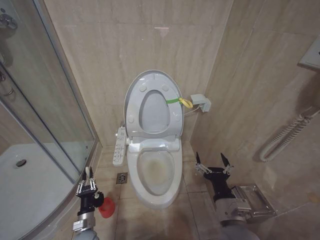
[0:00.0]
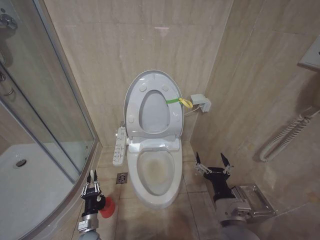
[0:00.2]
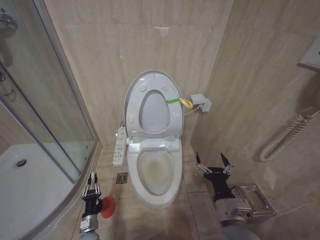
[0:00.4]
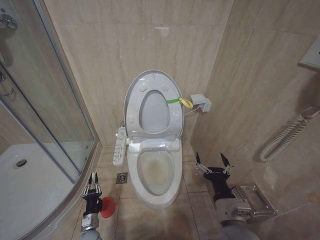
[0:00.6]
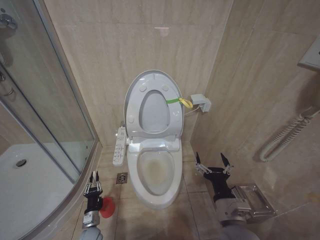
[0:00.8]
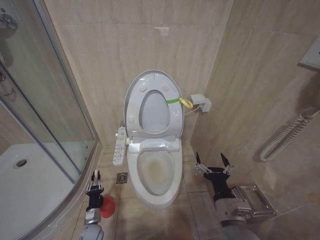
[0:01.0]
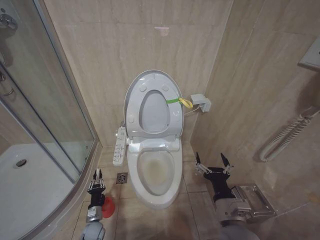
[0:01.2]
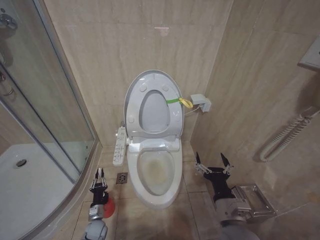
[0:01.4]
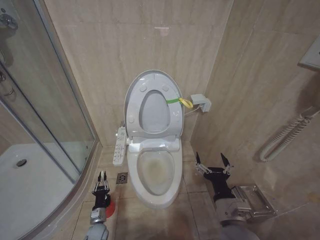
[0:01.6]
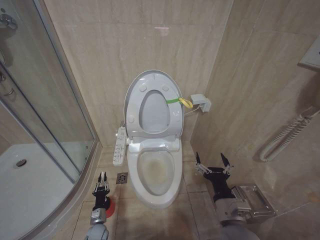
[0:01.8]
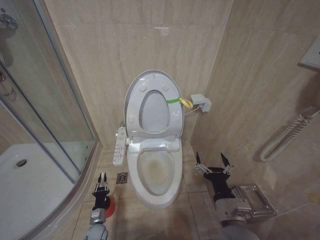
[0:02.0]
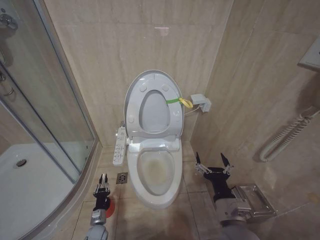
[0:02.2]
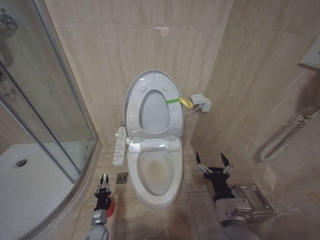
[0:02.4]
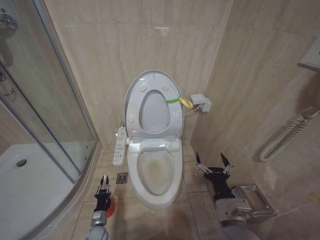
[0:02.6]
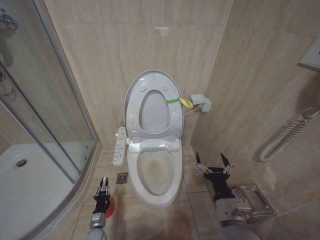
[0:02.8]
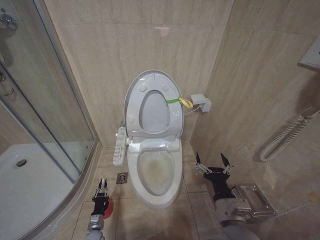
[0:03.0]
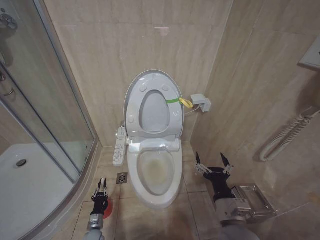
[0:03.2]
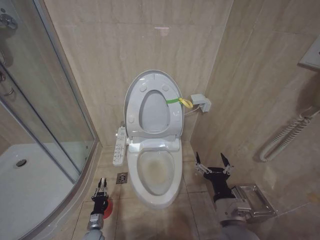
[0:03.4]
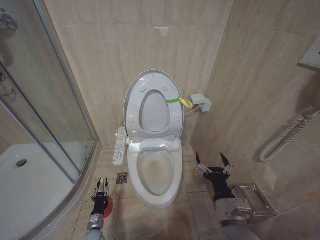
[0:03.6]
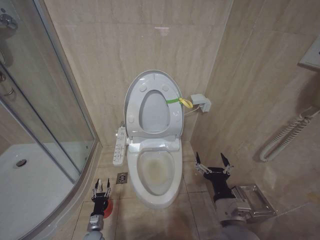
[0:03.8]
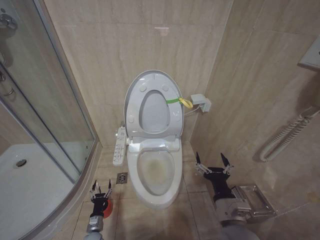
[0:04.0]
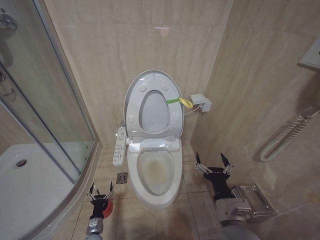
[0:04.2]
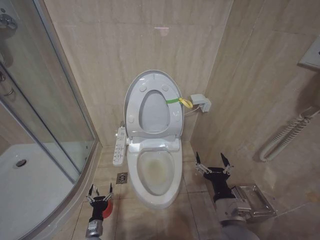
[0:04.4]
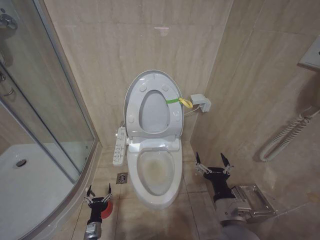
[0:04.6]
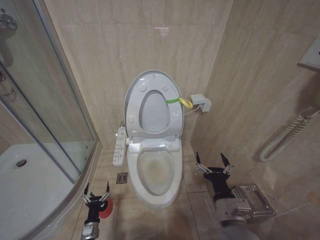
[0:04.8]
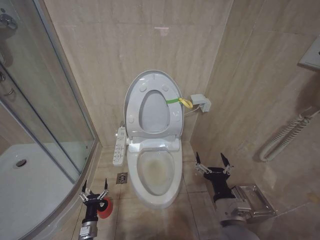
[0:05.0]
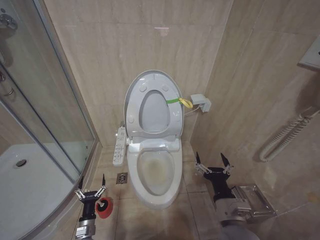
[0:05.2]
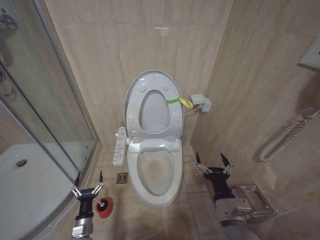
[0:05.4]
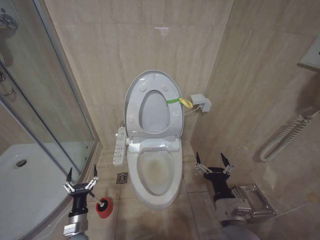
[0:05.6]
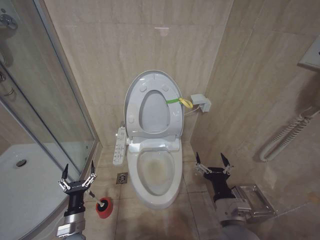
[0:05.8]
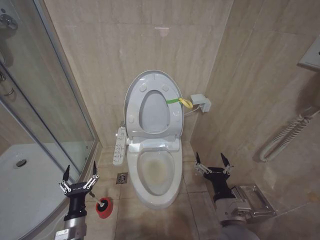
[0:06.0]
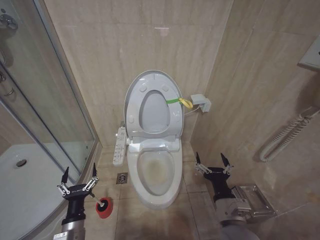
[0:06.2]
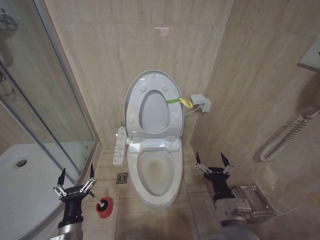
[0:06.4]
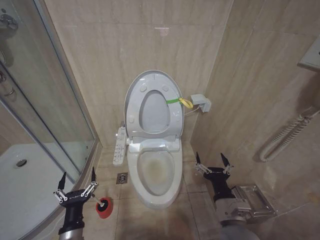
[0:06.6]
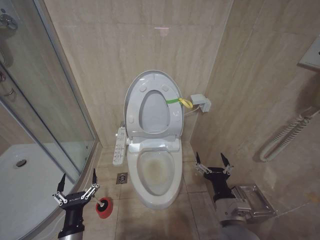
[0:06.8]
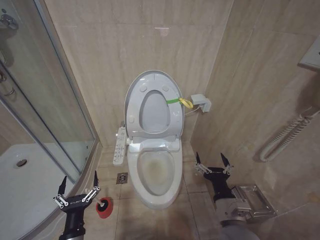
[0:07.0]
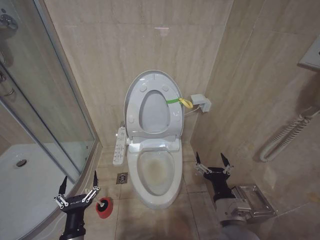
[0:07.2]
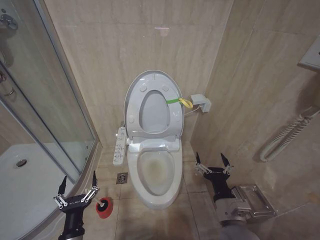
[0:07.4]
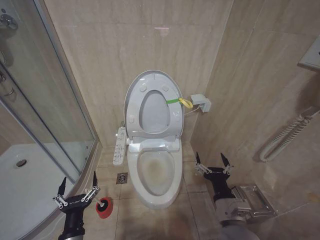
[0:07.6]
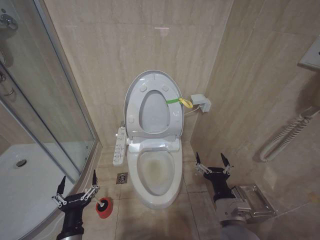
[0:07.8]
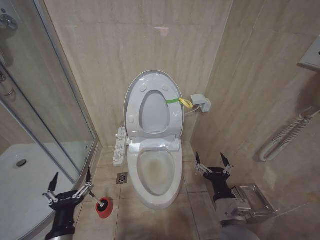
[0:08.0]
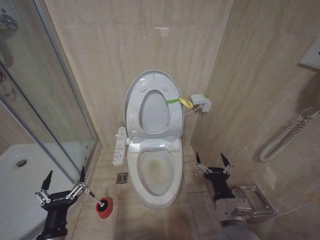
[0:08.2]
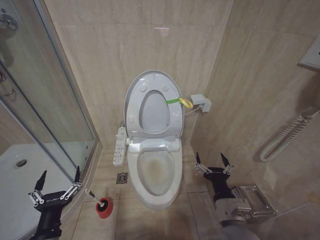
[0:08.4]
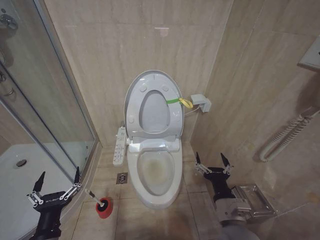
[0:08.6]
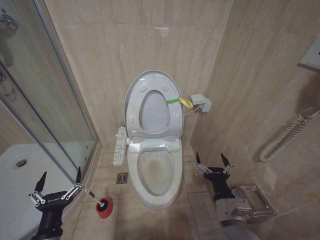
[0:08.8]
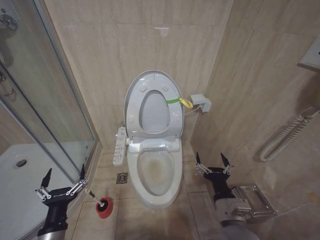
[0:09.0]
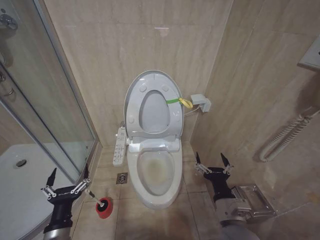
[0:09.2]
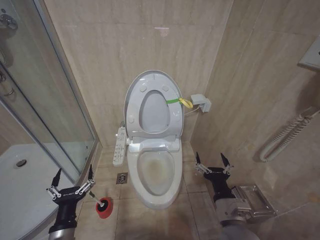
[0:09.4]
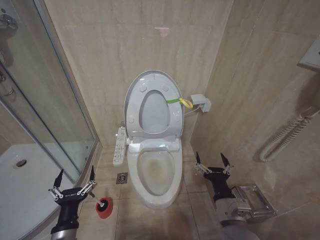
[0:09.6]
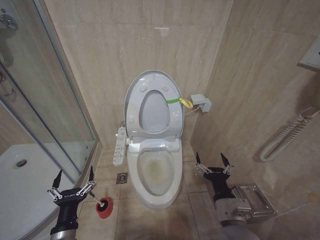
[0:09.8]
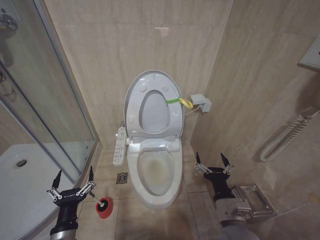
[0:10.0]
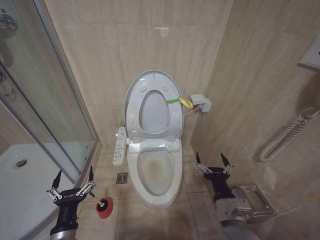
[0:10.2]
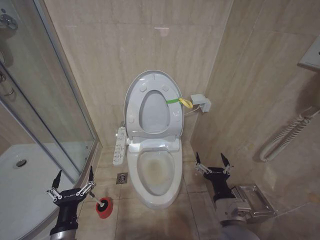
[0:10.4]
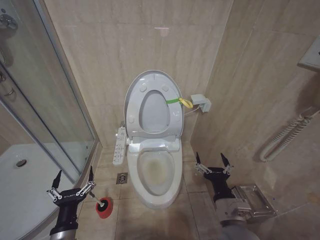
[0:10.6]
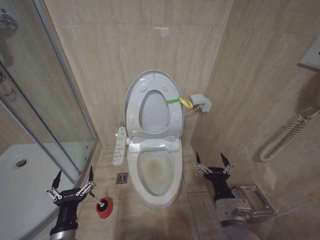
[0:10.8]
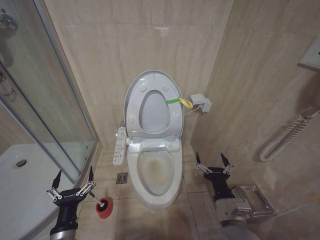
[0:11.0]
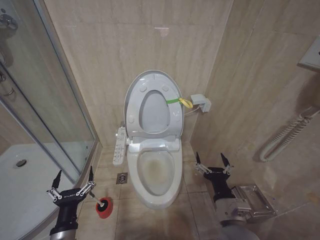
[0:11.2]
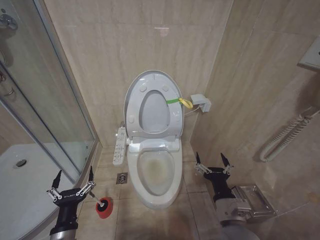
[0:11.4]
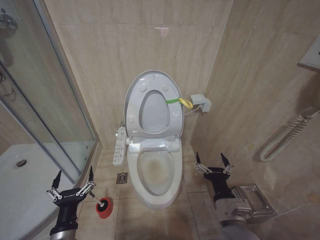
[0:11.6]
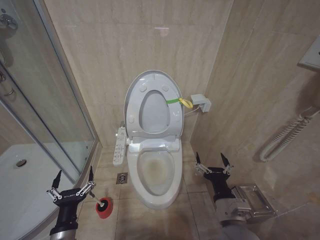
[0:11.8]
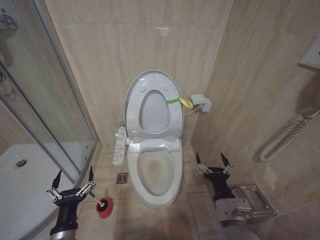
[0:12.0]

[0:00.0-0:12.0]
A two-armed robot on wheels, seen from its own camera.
Task of the whole recording: Open the toilet lid, clean the toilet bowl with a toilet brush, close the toilet lid, and flush.
0:00.0 to 0:01.6: The left gripper goes some 10 cm downward.
0:03.0 to 0:04.4: The left gripper opens.
0:04.4 to 0:06.0: The left gripper goes about 25 cm upward.
0:06.0 to 0:07.6: The left gripper shifts about 5 cm backward.
0:07.6 to 0:09.0: The left gripper shifts by roughly 5 cm.
0:09.0 to 0:10.4: The grippers move only a little.
0:10.4 to 0:12.0: Neither gripper changes place.

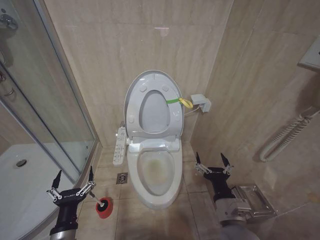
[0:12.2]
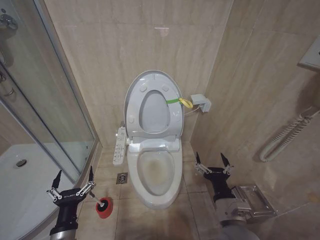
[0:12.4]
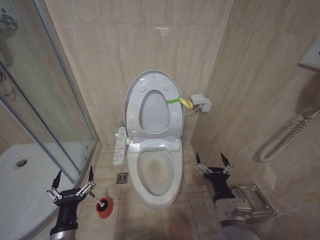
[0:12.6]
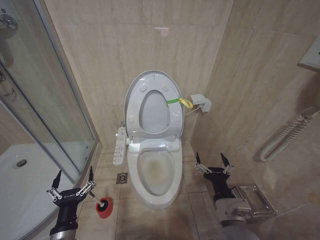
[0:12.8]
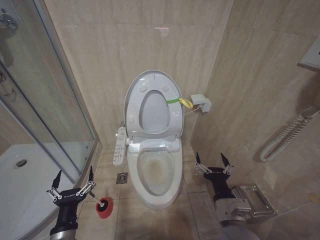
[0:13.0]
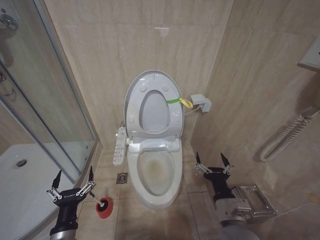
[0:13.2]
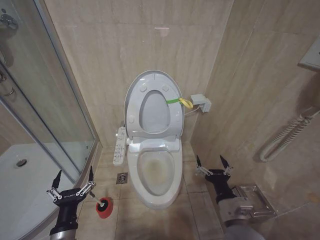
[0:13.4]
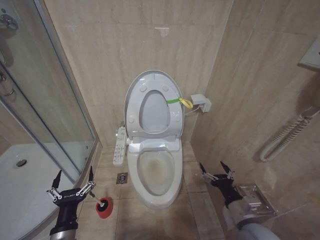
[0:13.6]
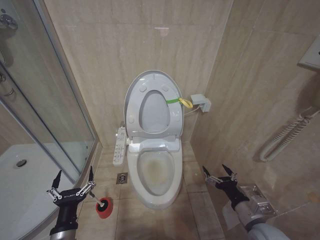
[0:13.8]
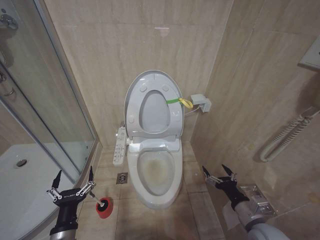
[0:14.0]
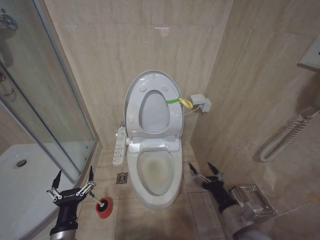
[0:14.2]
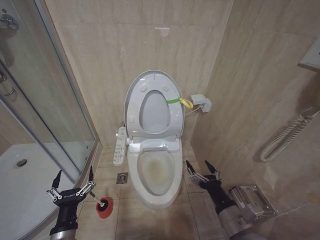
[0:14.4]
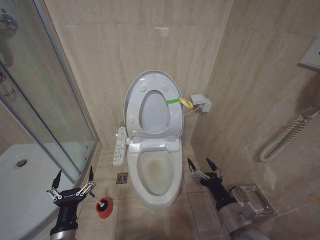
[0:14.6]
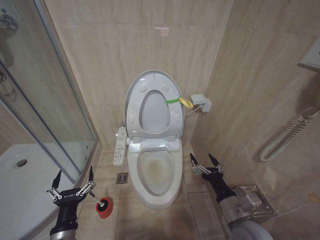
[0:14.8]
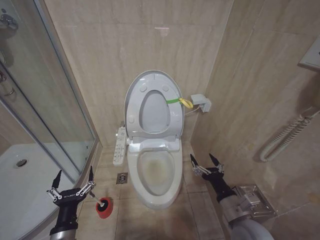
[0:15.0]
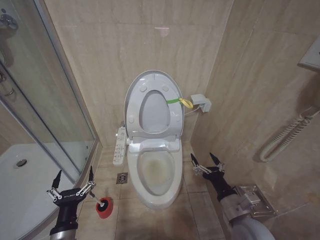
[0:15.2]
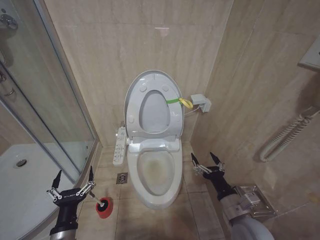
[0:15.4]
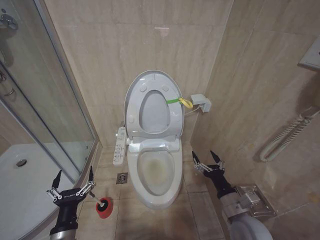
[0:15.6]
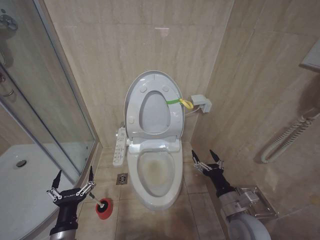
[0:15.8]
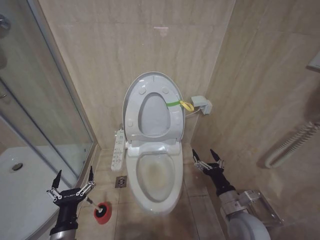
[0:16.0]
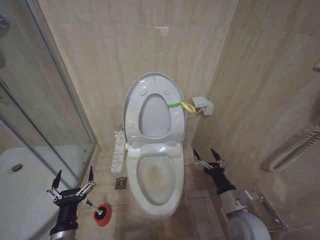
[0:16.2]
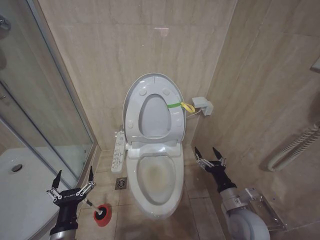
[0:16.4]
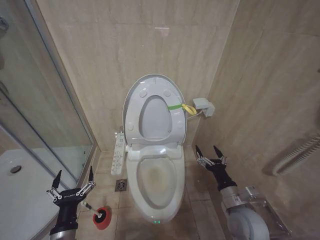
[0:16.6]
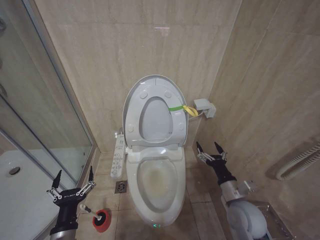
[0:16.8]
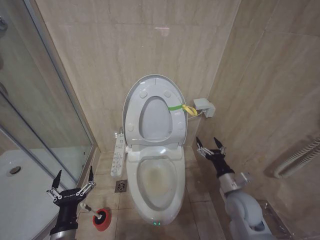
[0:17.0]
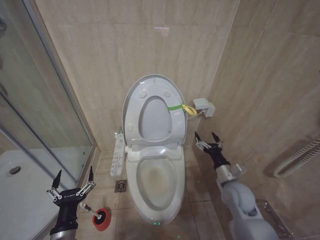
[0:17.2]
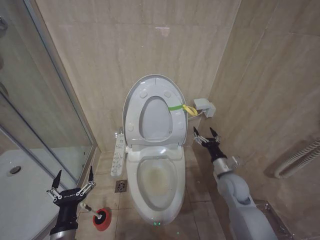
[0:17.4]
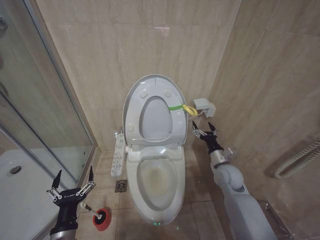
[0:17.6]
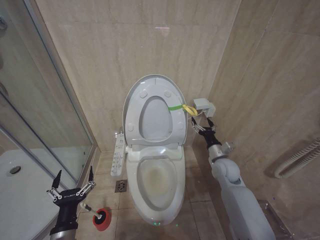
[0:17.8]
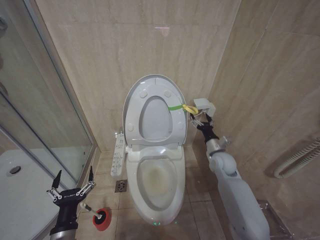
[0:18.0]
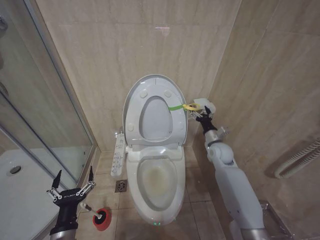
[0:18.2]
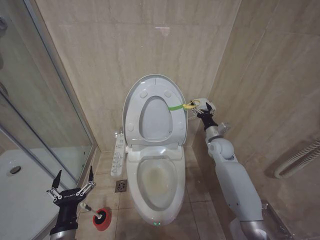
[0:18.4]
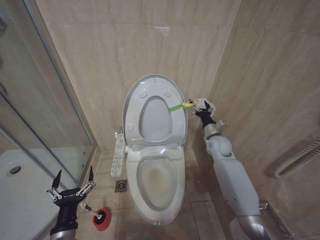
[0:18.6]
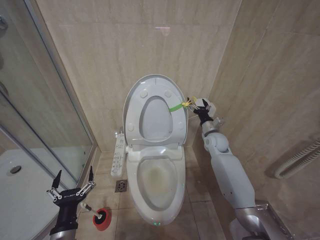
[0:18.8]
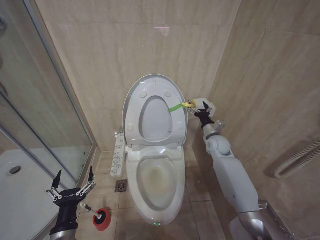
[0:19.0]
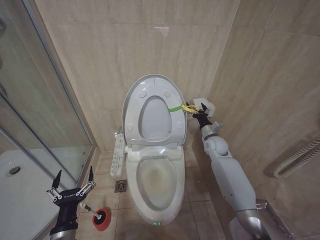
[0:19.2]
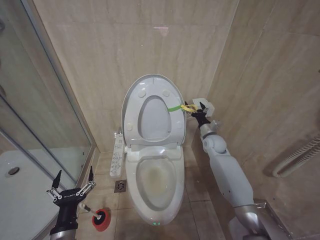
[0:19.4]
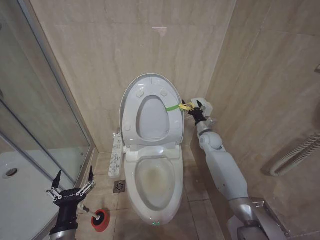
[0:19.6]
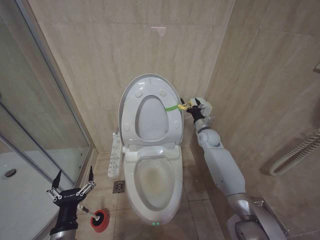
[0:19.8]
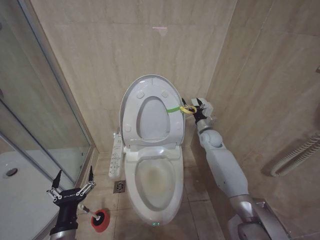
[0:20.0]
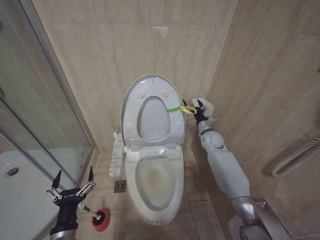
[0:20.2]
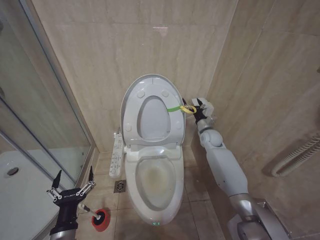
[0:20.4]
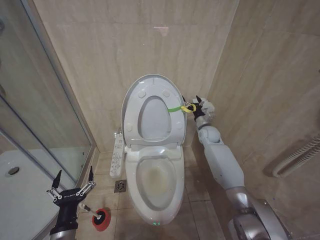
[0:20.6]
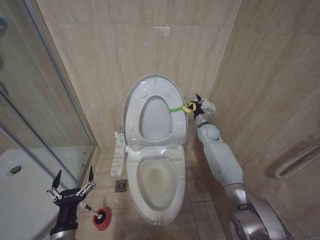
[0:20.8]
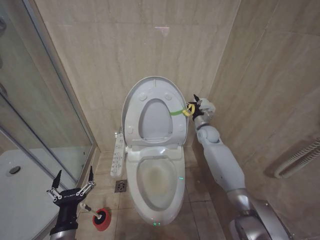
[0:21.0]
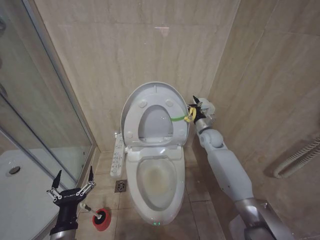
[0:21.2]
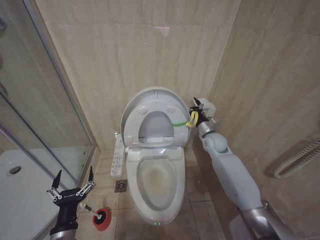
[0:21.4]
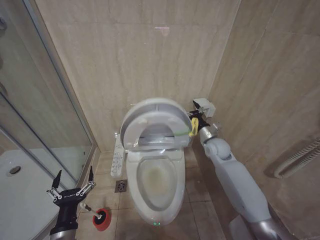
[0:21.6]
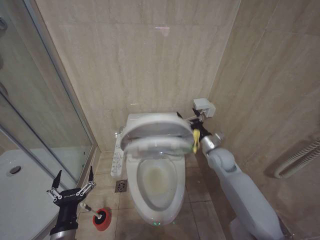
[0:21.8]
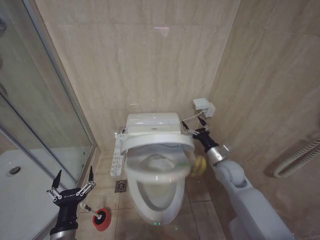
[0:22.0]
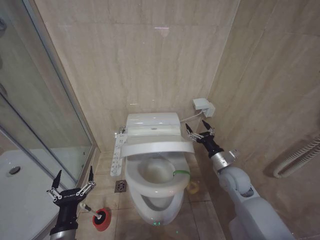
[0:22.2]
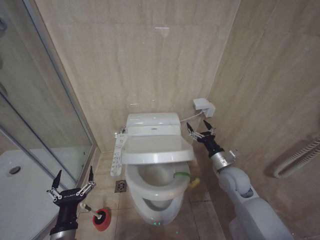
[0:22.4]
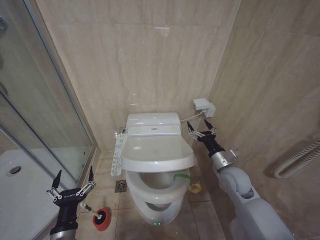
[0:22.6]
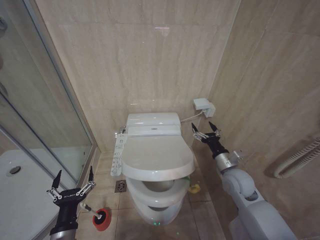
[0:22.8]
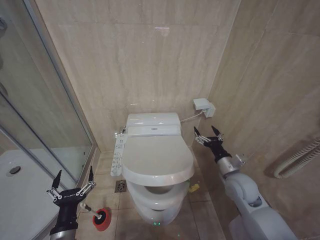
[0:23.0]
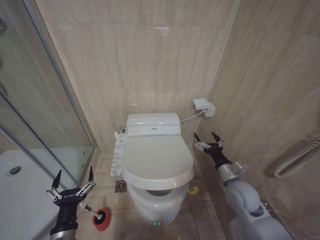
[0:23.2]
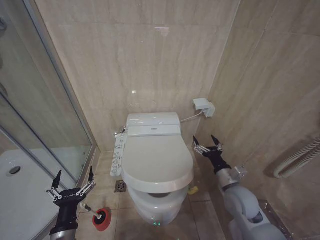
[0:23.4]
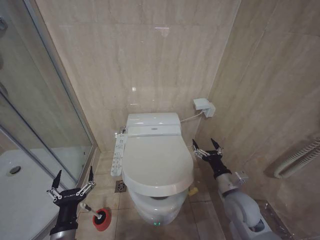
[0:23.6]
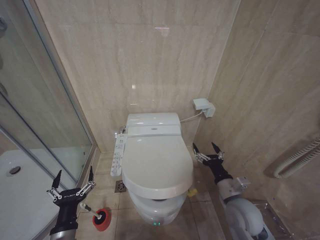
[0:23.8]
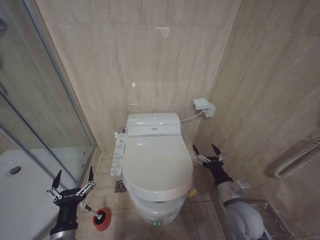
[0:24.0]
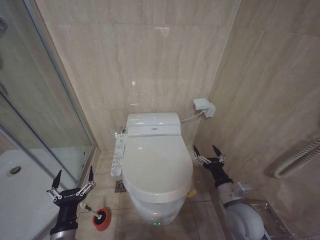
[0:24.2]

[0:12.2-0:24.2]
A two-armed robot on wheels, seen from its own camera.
Task of the whole recording: Open the toilet lid, clean the toilet bowl with a toilet brush, close the toilet lid, and flush.
0:12.2 to 0:13.8: The right gripper goes approximately 10 cm to the right.
0:13.8 to 0:15.2: The right gripper heads to the left, covering about 5 cm.
0:15.2 to 0:16.6: The grippers move only a little.
0:16.6 to 0:18.2: The right gripper shifts approximately 25 cm forward.
0:18.2 to 0:19.8: The right gripper heads forward, covering some 10 cm.
0:19.8 to 0:21.2: The grippers stay close to where they were, moving slightly.
0:21.2 to 0:22.6: The right gripper is displaced backward by approximately 20 cm.
0:22.6 to 0:24.2: The right gripper travels backward by some 10 cm.
